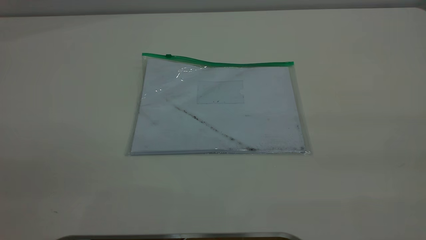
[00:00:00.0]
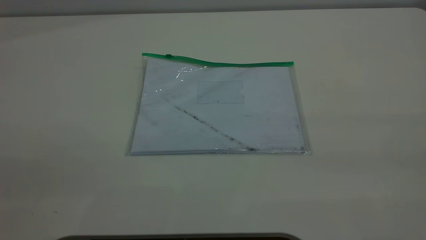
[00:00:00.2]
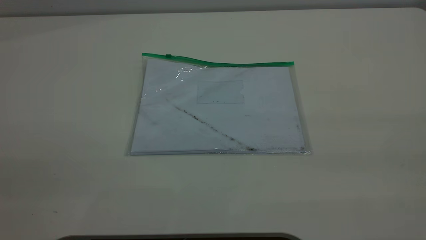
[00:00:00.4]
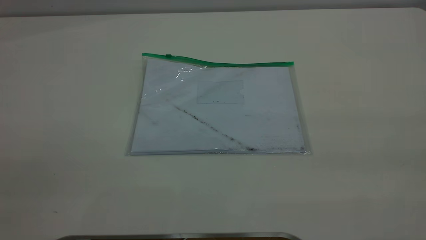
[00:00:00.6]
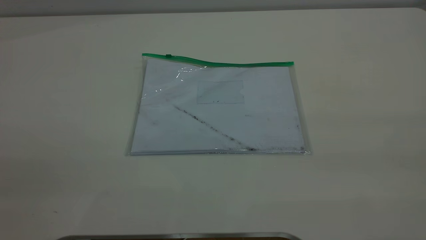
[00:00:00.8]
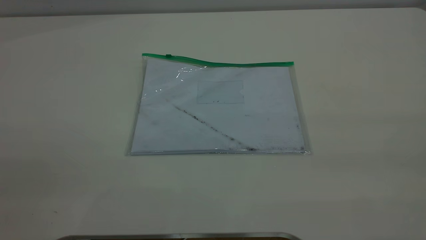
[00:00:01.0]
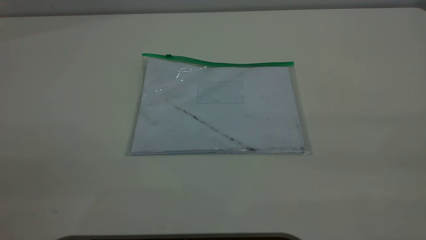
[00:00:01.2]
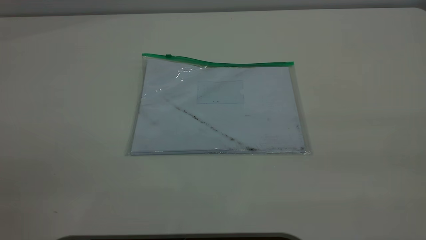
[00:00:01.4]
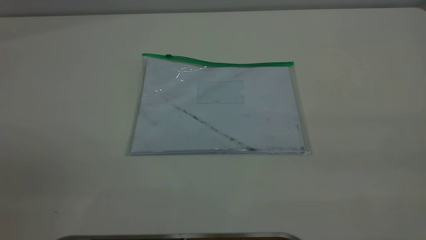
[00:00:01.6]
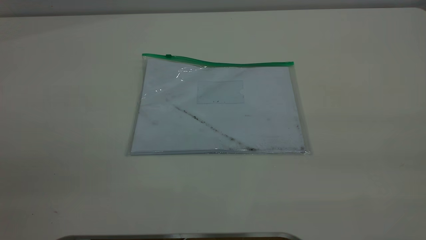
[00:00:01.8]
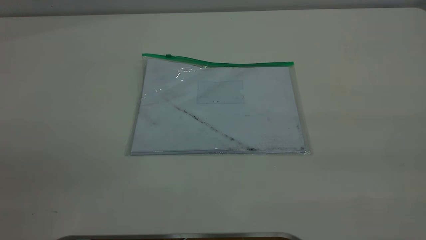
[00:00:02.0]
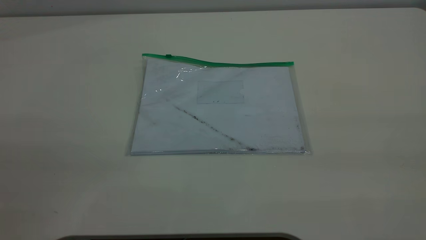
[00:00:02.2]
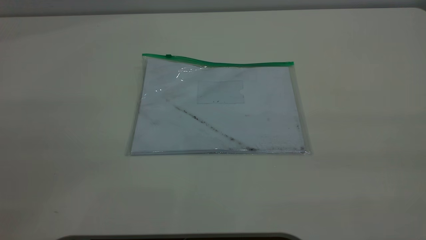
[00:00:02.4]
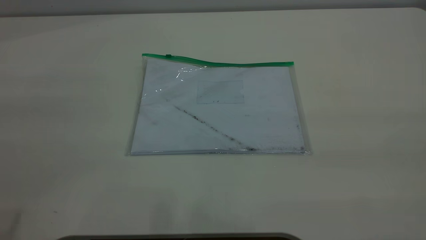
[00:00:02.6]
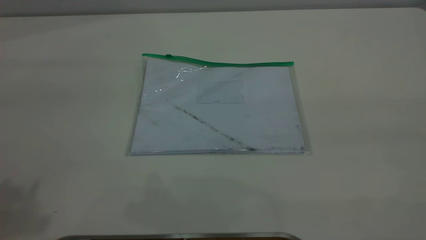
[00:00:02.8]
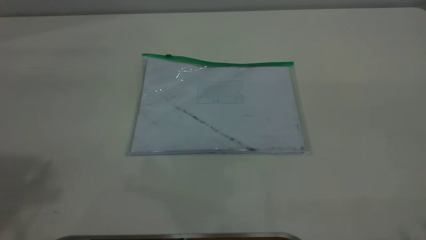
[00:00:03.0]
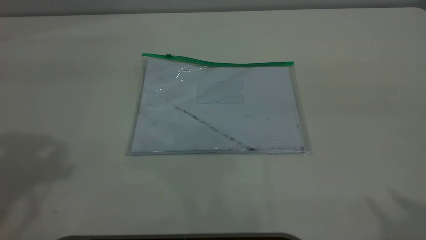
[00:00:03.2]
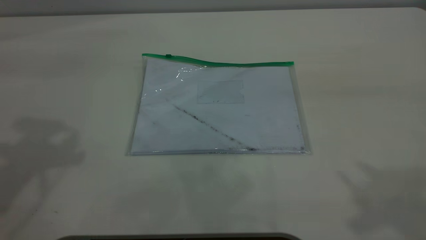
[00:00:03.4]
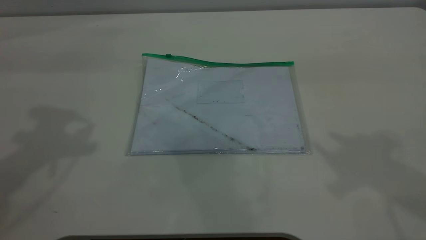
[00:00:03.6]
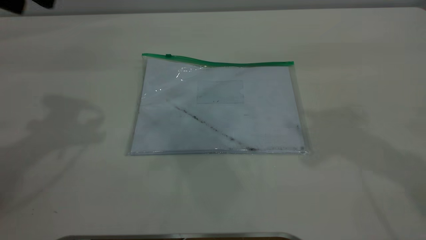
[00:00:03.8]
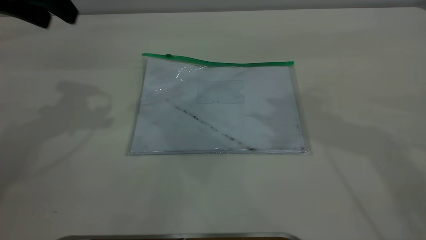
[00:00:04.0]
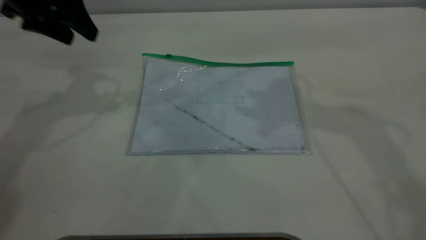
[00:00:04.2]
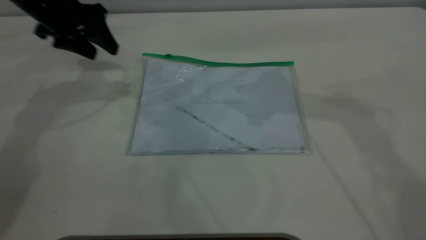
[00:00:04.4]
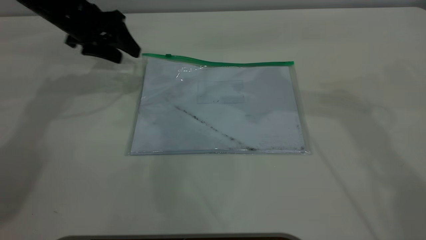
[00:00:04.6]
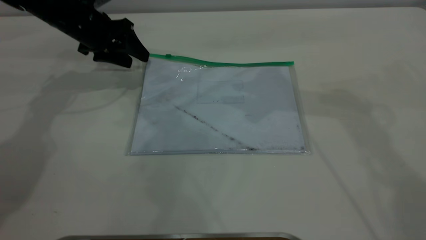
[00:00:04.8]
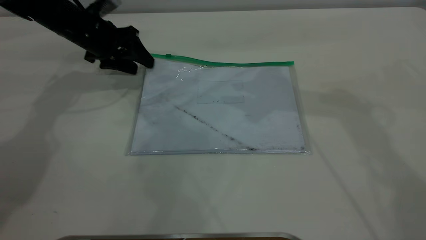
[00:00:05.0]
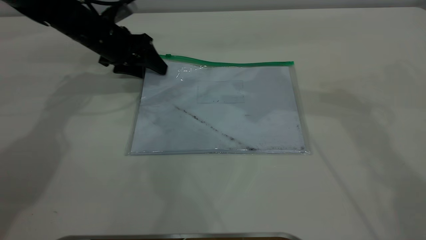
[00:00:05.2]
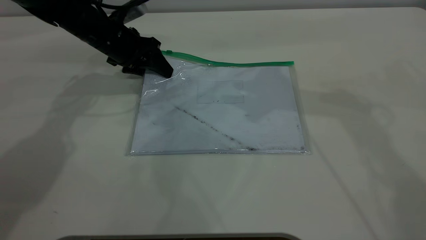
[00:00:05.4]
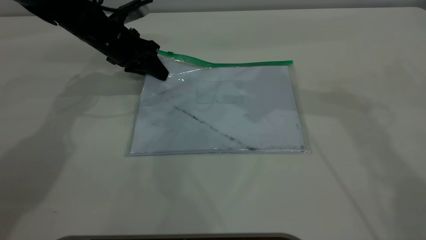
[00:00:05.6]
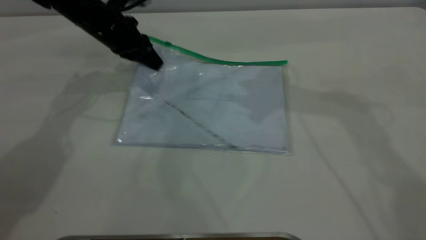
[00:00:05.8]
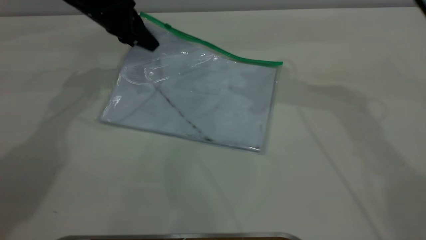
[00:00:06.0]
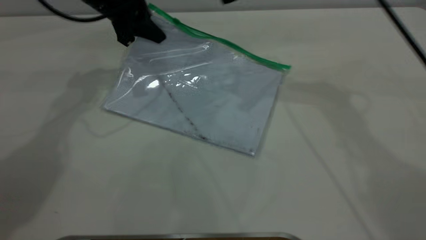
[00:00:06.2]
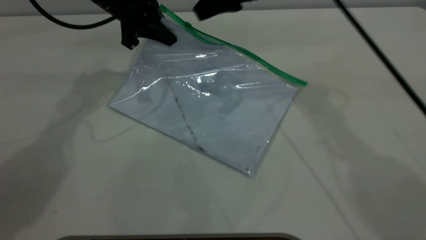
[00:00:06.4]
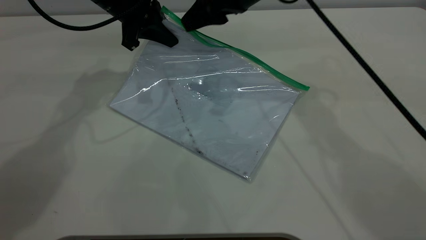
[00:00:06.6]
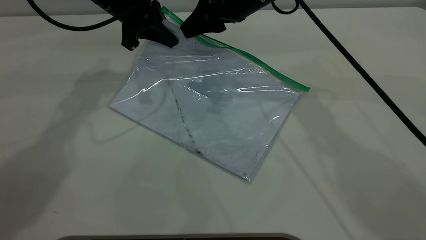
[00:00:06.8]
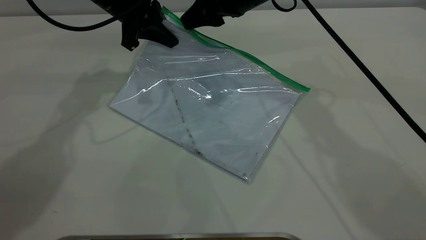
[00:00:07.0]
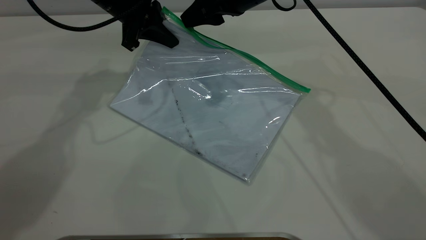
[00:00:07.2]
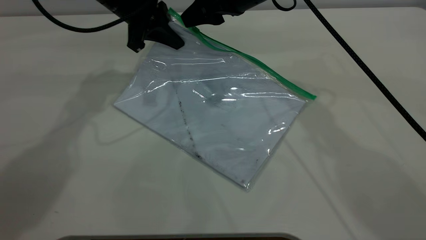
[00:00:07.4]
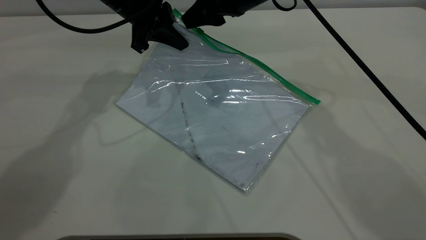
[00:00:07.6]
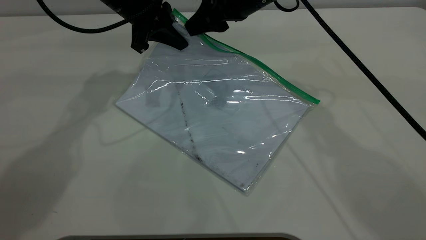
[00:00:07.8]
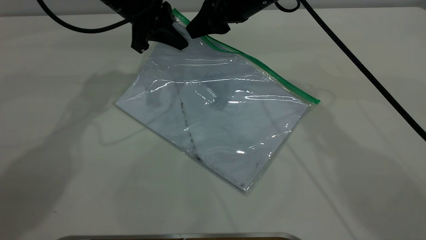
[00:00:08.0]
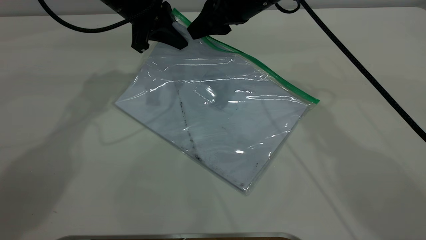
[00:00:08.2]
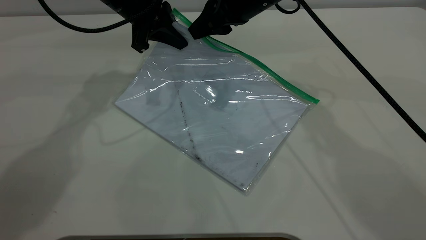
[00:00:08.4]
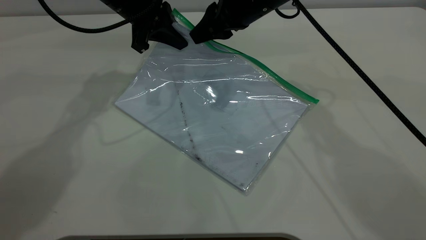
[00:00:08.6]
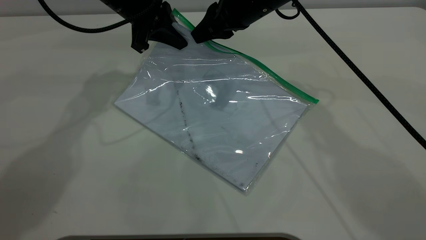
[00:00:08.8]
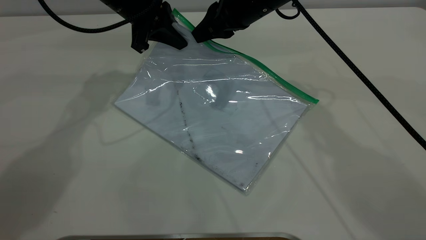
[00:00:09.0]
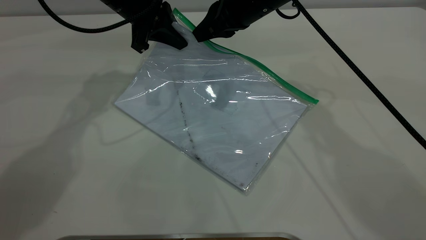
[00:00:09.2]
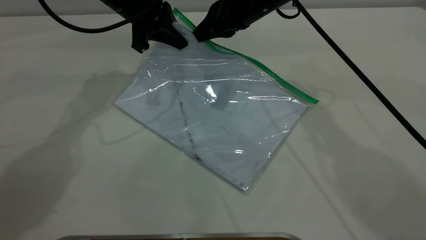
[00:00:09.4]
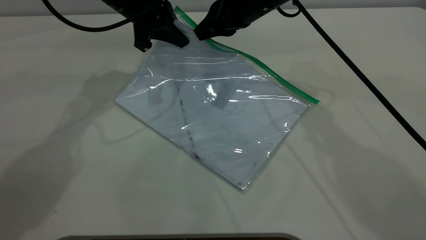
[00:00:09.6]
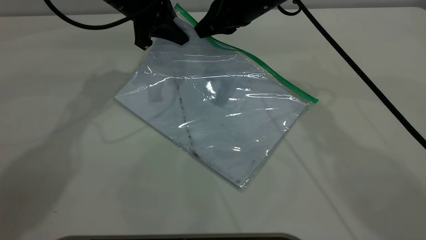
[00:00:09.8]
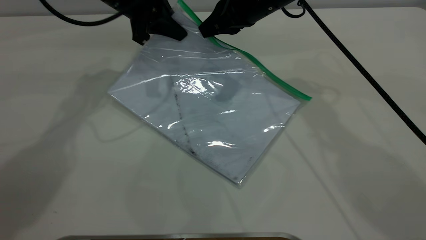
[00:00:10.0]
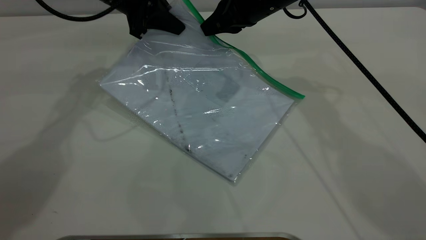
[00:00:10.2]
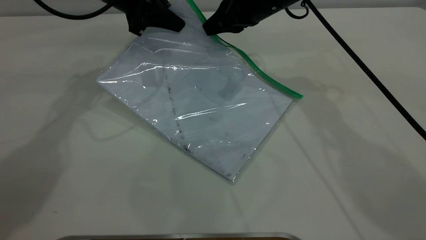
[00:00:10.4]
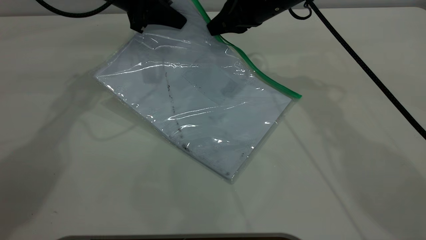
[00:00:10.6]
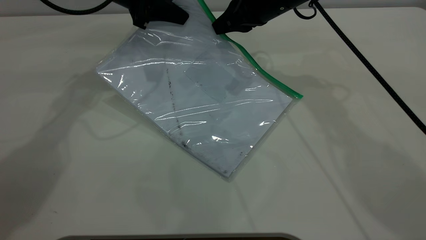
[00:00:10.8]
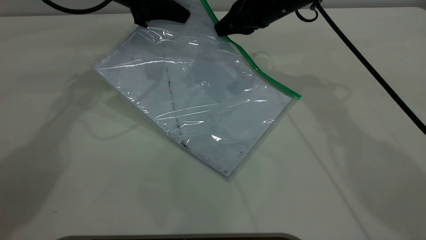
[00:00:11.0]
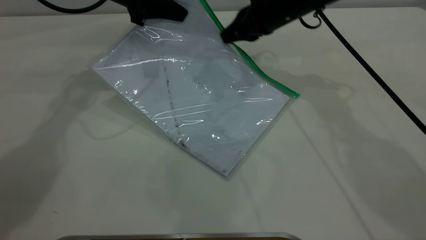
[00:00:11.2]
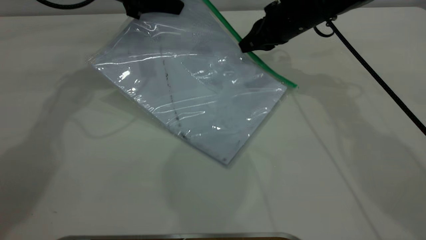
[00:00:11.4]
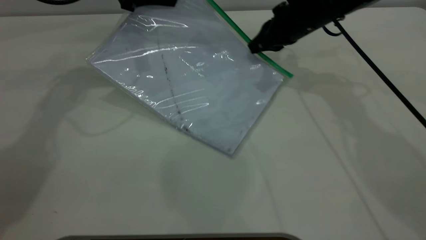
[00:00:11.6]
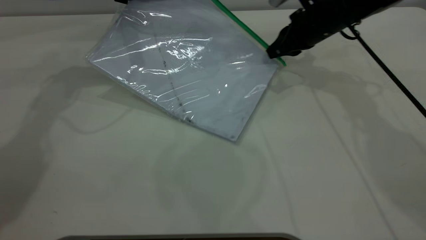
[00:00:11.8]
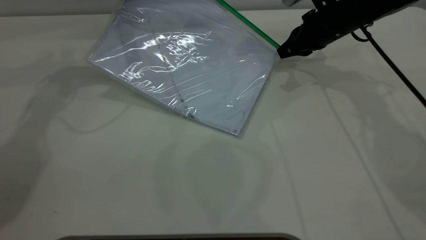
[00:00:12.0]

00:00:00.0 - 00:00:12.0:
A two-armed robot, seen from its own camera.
Step, 00:00:00.0 - 00:00:06.0: Pick up the transparent plastic bag with the left gripper.
00:00:00.0 - 00:00:01.6: Both grippers stay about where they are.
00:00:03.0 - 00:00:04.4: The left gripper moves forward and downward, approximately 30 cm.
00:00:04.4 - 00:00:06.0: The left gripper travels to the right by some 5 cm, moves some 10 cm downward and comes back, and closes up.
00:00:06.0 - 00:00:07.6: The left gripper shifts about 5 cm to the right. Meanwhile the right gripper is displaced to the left and downward by approximately 10 cm.
00:00:07.6 - 00:00:09.0: The right gripper closes.
00:00:09.0 - 00:00:10.4: The grippers stay close to where they were, moving slightly.
00:00:10.4 - 00:00:12.0: The left gripper shifts by approximately 5 cm. Meanwhile the right gripper goes approximately 15 cm to the right and downward.

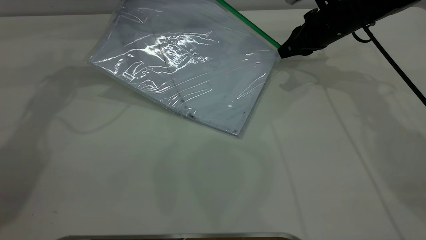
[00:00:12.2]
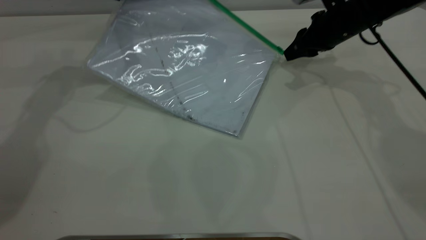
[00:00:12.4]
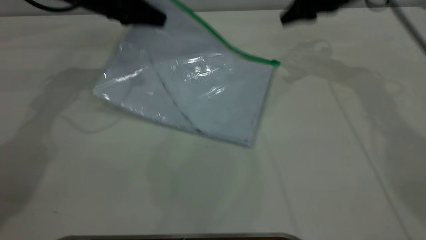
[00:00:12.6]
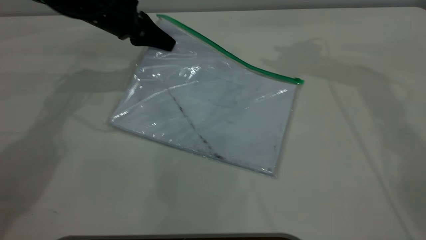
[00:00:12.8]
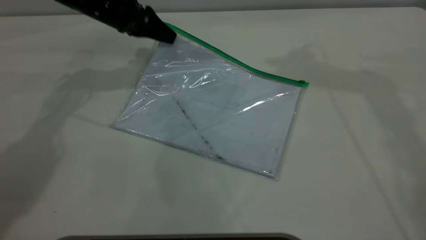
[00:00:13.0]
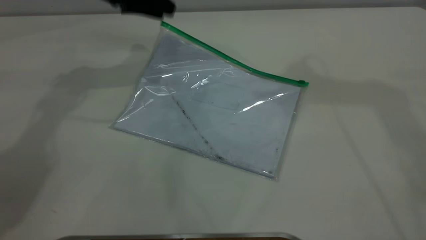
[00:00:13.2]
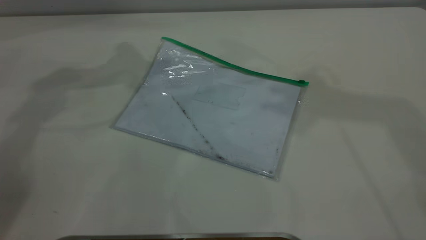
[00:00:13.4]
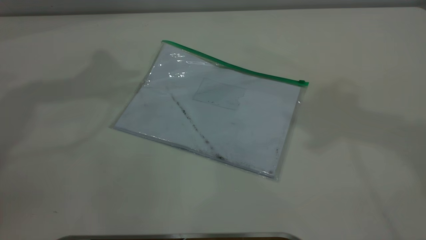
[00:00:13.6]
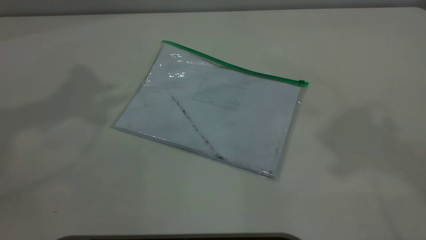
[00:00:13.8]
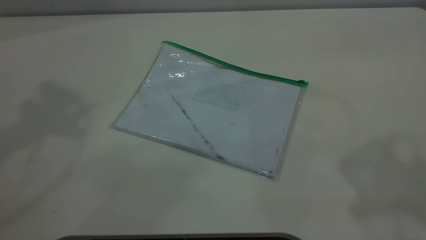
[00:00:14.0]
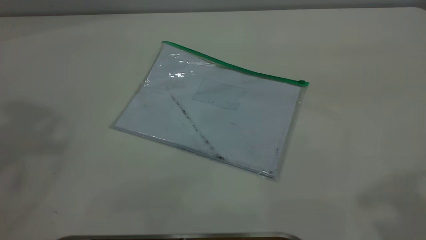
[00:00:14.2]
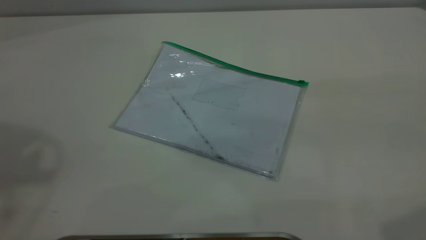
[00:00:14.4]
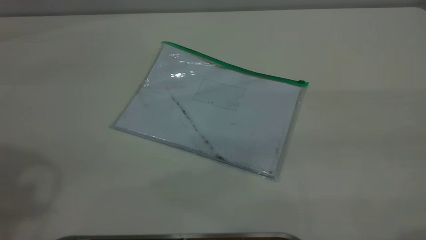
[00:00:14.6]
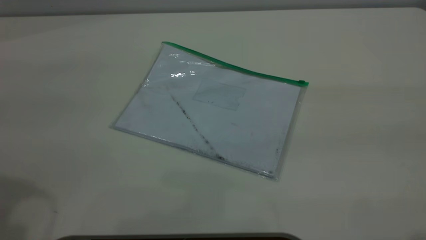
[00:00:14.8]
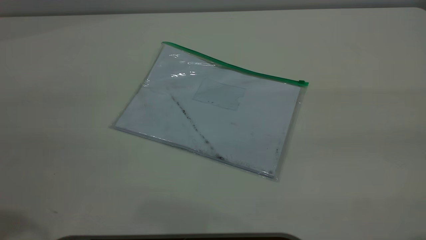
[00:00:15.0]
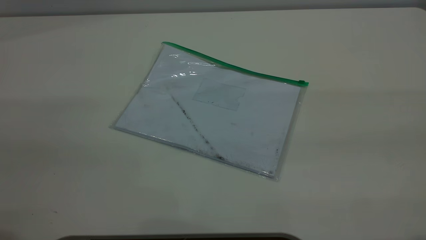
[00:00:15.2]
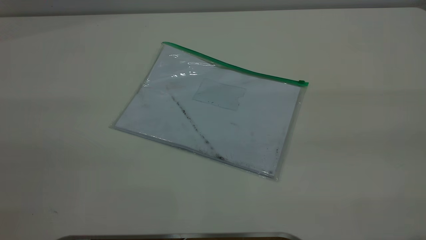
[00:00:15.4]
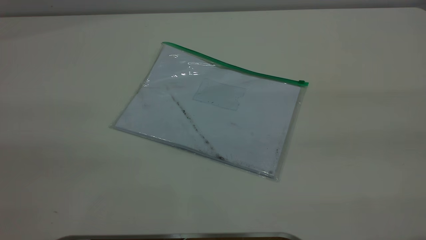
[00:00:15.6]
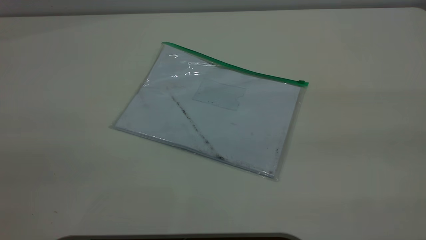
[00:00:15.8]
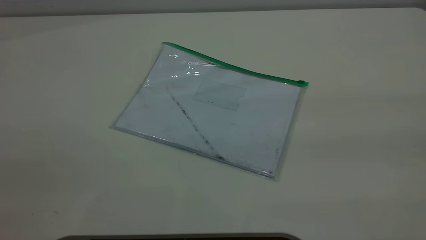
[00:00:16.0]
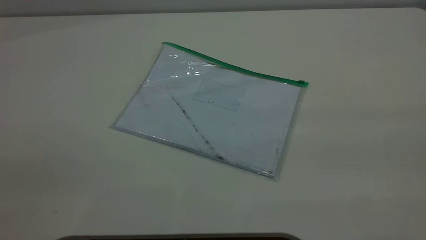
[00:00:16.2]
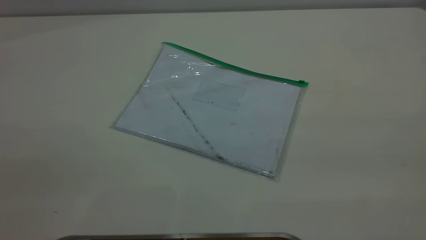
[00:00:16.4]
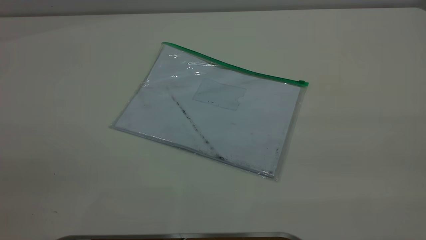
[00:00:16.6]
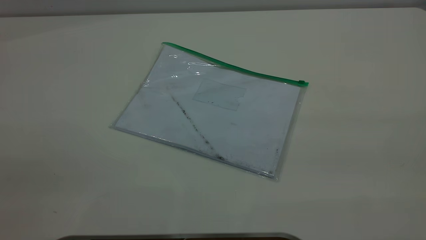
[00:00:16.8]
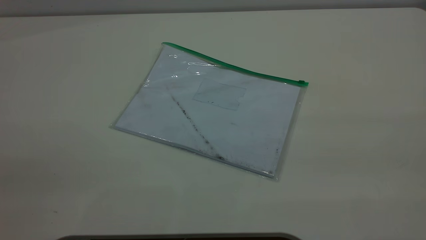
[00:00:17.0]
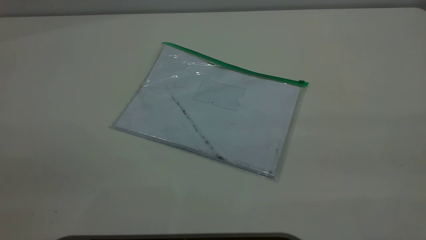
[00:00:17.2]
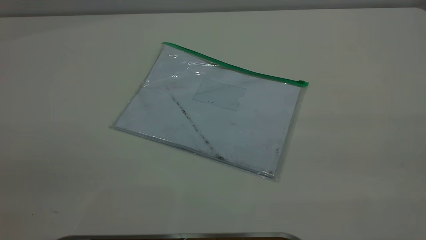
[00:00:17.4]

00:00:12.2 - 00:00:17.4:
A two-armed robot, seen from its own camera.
Step, 00:00:12.6 - 00:00:13.2: Place the transparent plastic bag.
00:00:12.2 - 00:00:14.0: Both grippers move upward and backward, approximately 40 cm. The left gripper opens, while the right gripper opens up.
